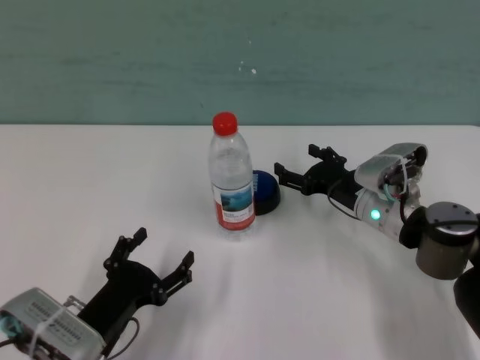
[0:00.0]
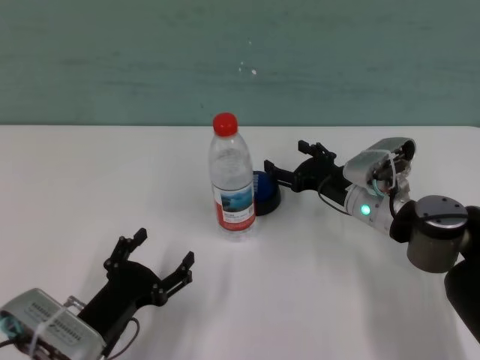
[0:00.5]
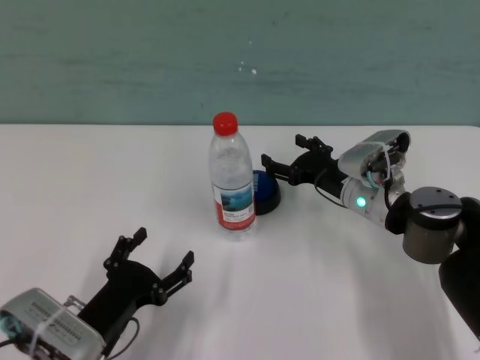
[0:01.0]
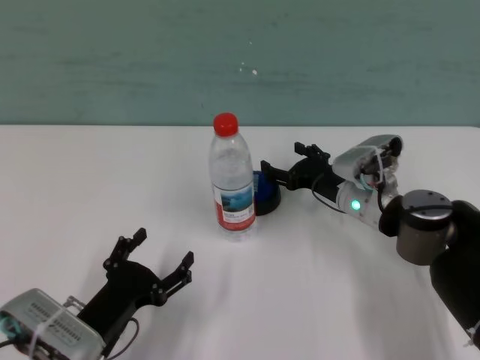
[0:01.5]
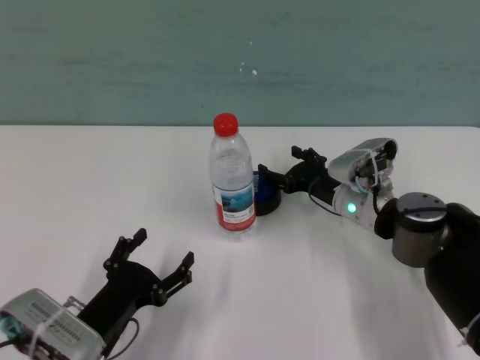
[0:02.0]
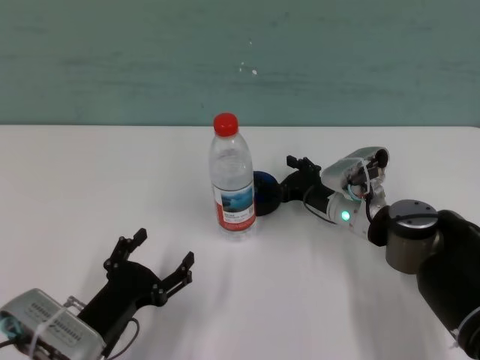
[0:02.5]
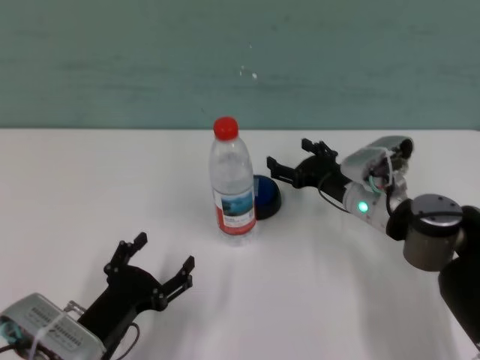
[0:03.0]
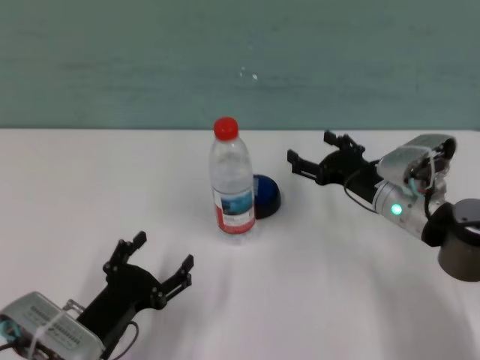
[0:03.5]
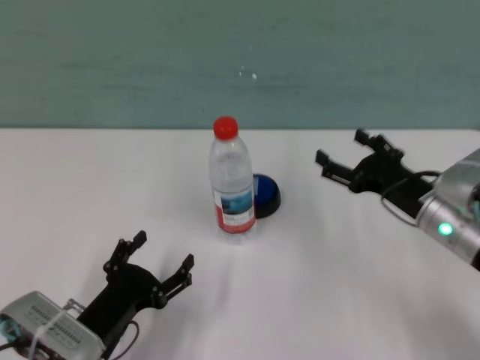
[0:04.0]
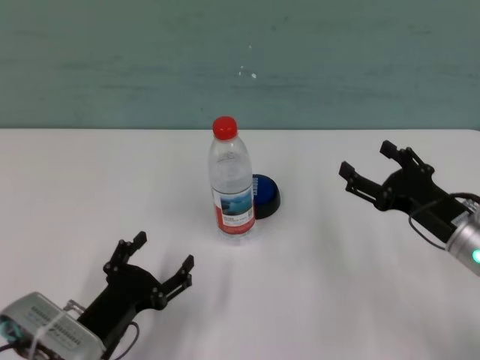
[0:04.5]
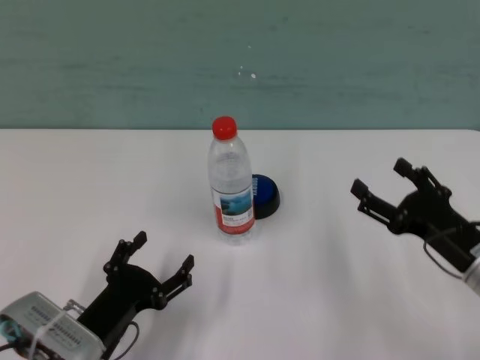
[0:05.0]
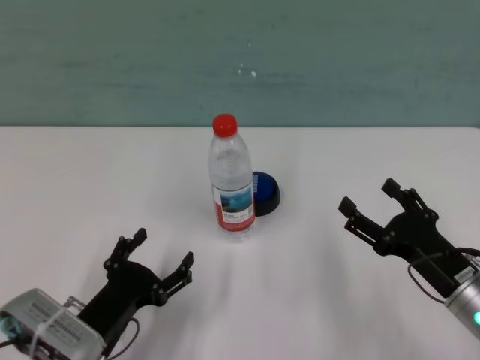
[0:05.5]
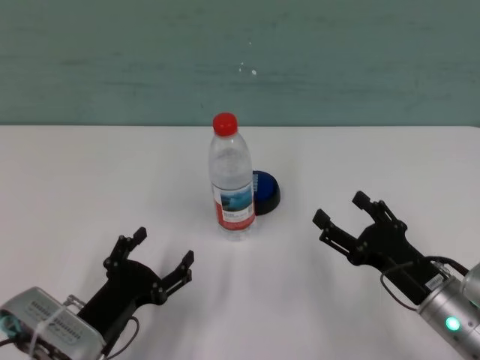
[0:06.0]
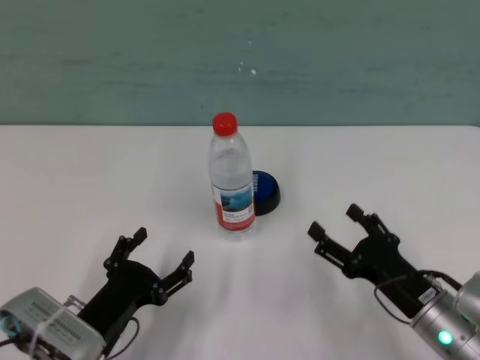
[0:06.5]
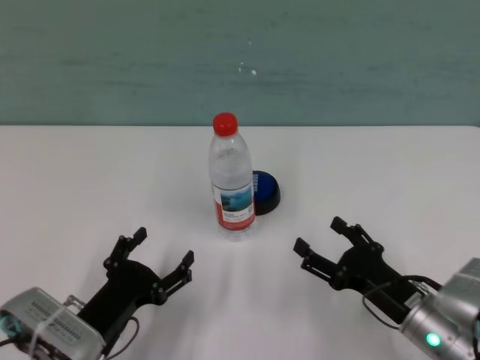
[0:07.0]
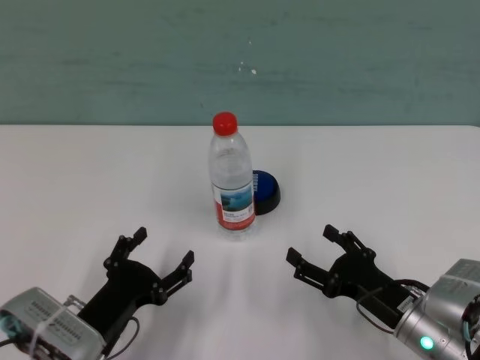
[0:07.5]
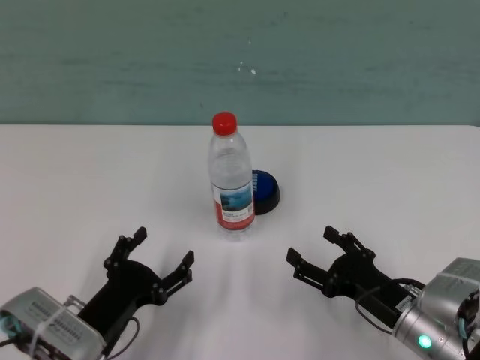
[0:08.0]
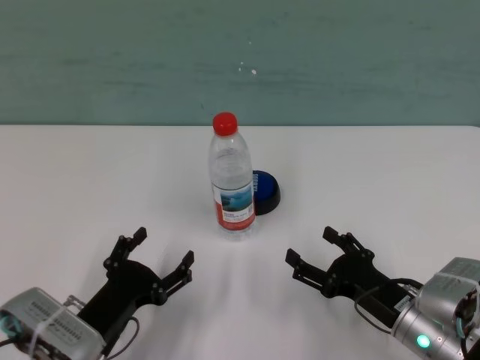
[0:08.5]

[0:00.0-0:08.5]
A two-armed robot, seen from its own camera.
Task of the whole recording: after avoiding the water bottle on the table, press the button.
Step, 0:00.0 to 0:02.5: Press the button blocked by the bottle with right gripper.

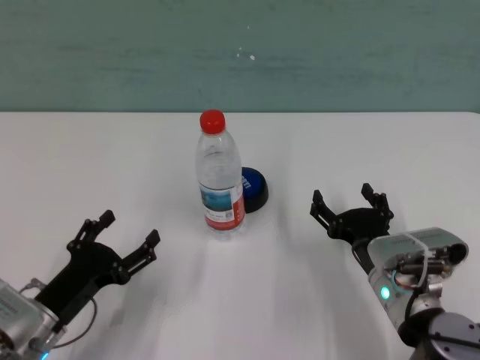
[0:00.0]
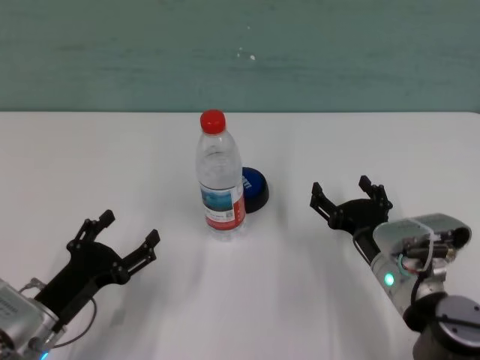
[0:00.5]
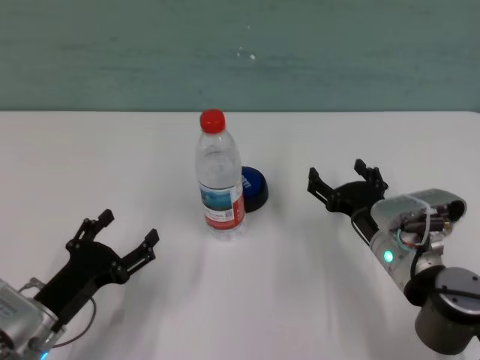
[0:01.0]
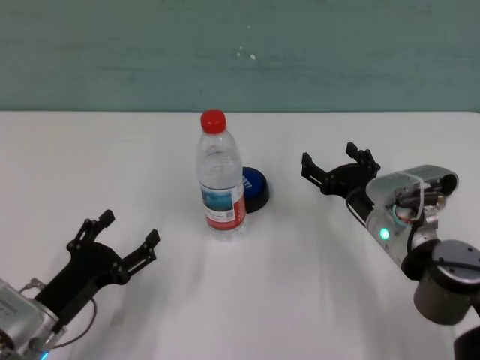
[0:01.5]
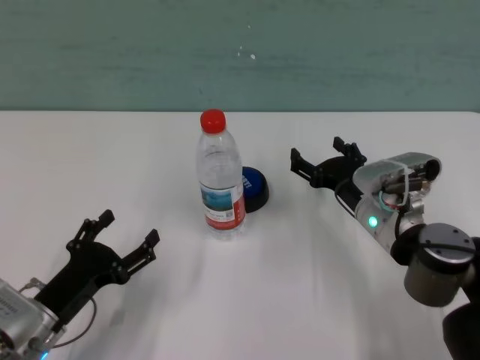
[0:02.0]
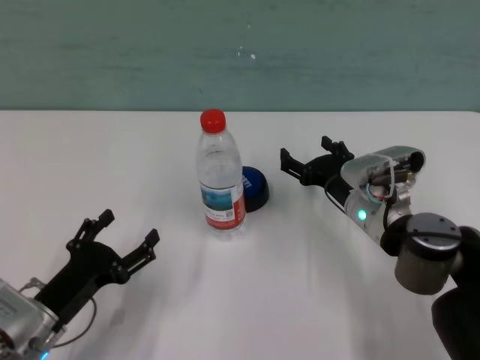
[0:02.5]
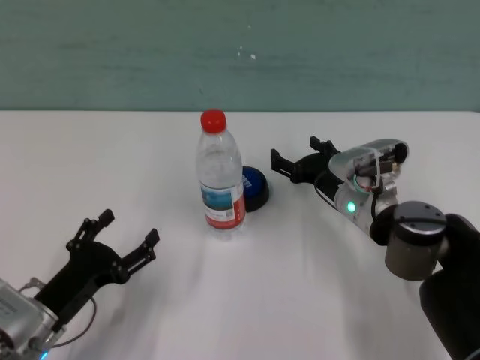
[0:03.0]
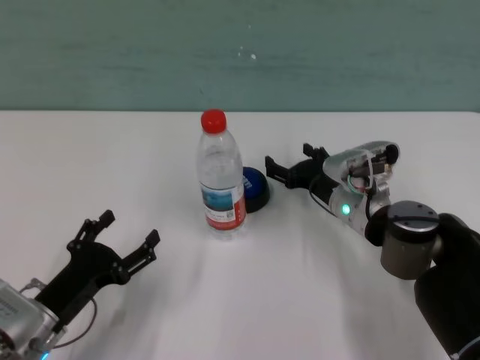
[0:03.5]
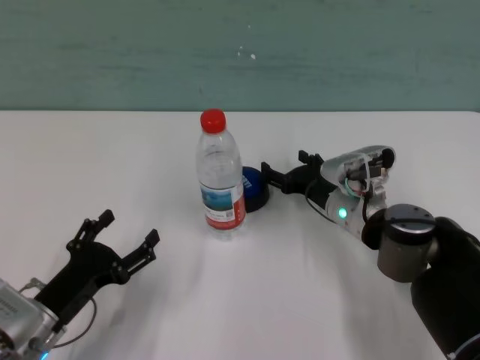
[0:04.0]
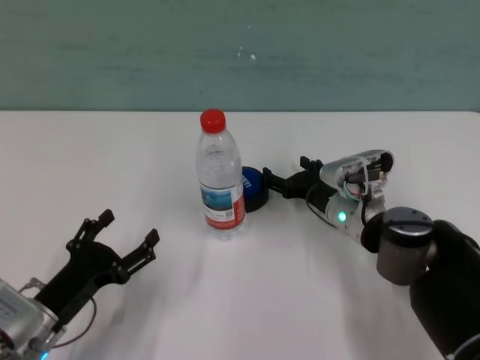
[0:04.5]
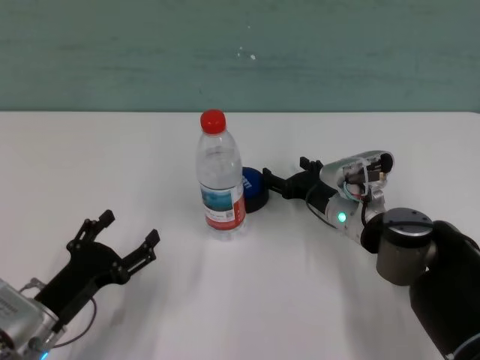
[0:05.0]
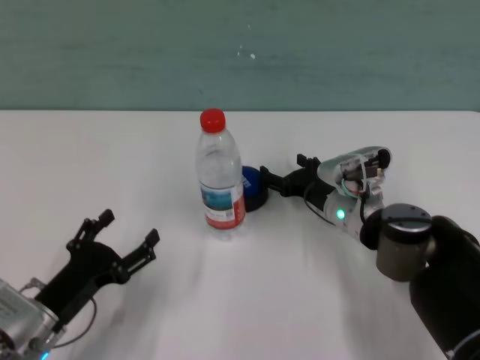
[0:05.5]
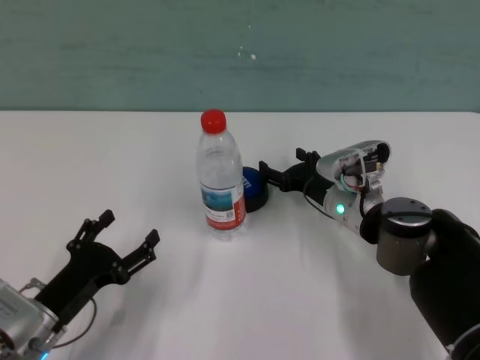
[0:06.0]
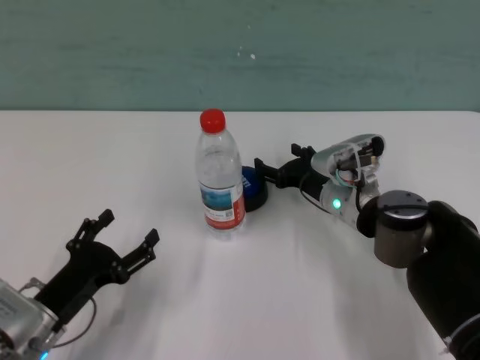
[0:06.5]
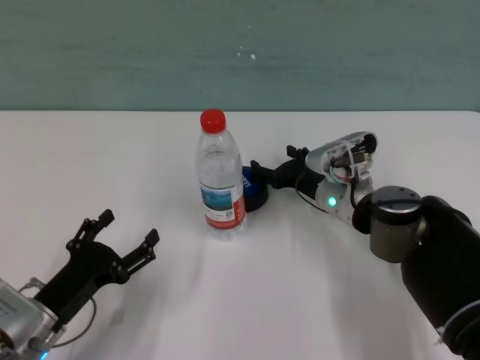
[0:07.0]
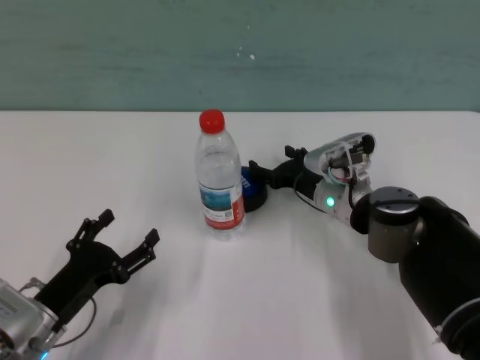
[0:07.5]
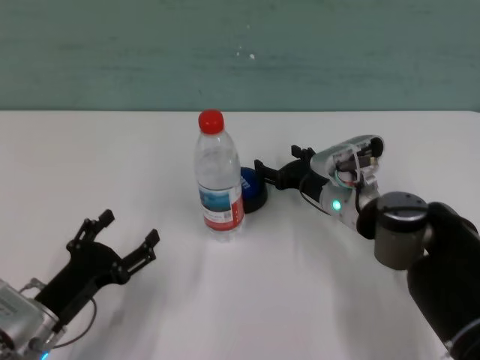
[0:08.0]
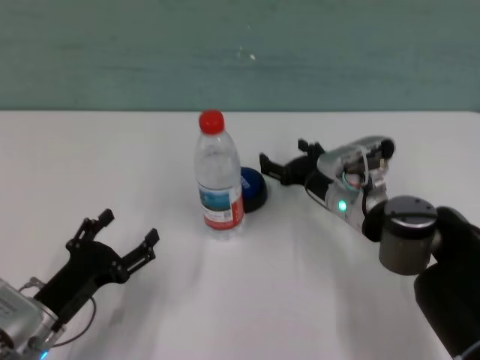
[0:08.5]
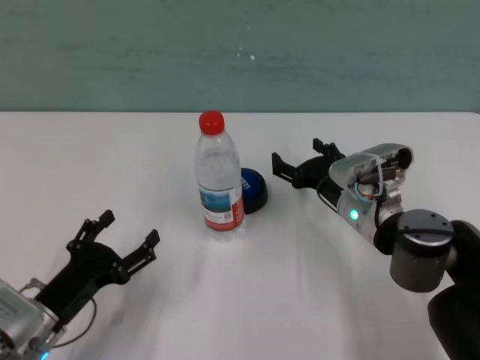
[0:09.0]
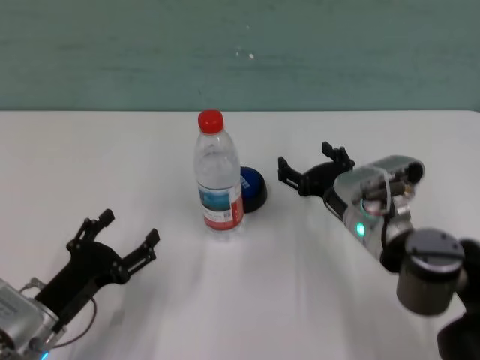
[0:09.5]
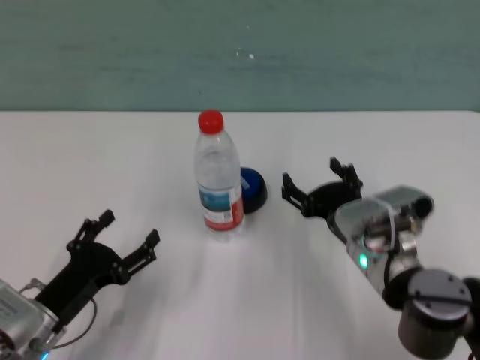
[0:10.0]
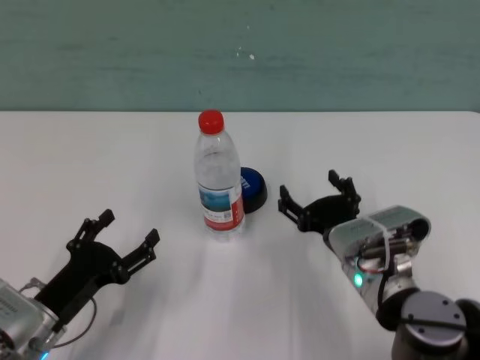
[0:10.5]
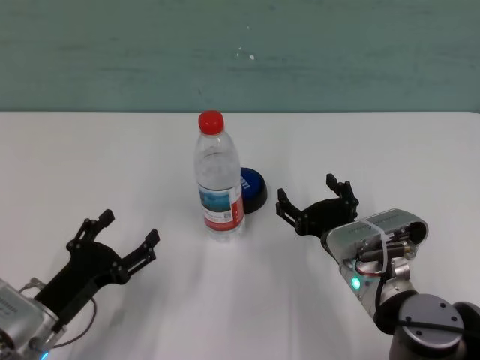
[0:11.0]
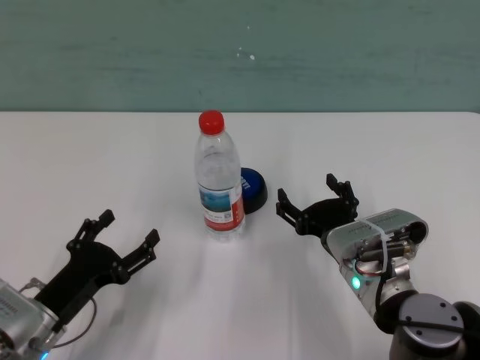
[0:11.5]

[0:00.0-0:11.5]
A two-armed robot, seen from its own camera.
Task of the whole recording: after avoiding the water bottle on the table, press the button.
Step, 0:00.0 to 0:06.0: Press the button blocked by the bottle with right gripper.
